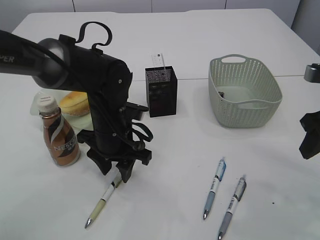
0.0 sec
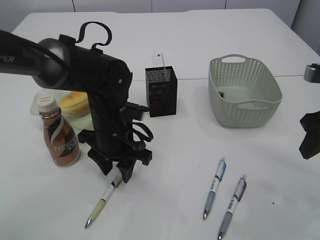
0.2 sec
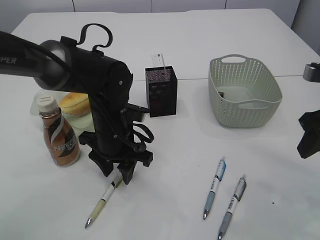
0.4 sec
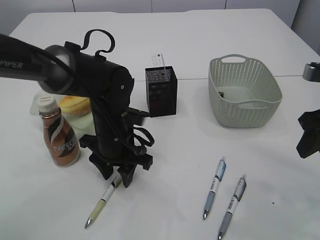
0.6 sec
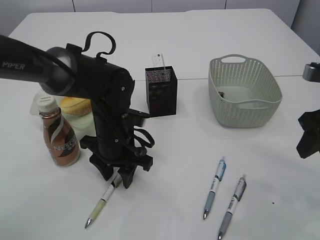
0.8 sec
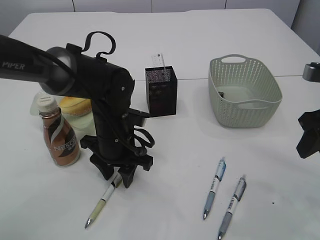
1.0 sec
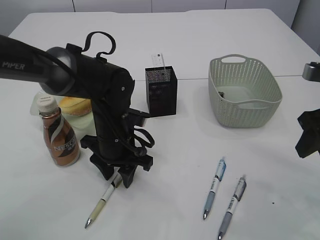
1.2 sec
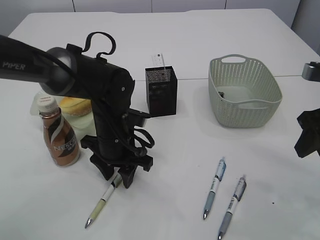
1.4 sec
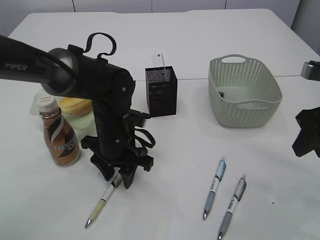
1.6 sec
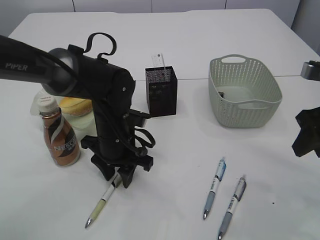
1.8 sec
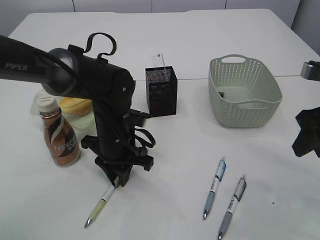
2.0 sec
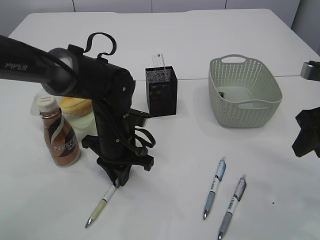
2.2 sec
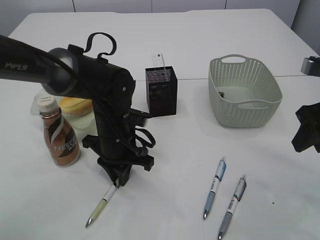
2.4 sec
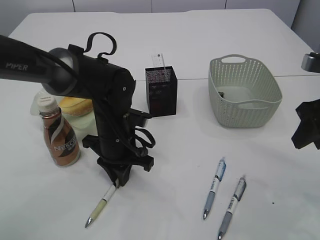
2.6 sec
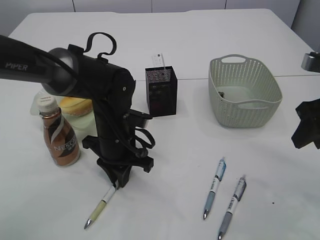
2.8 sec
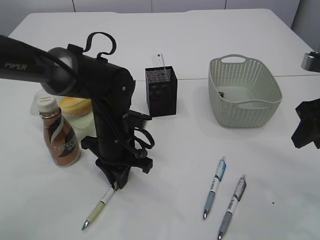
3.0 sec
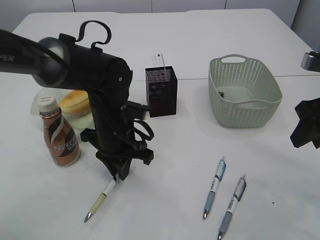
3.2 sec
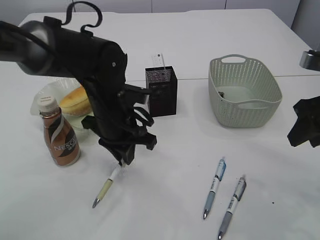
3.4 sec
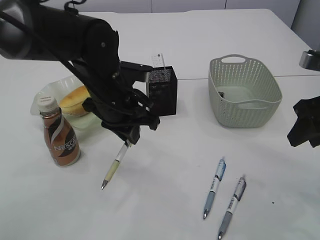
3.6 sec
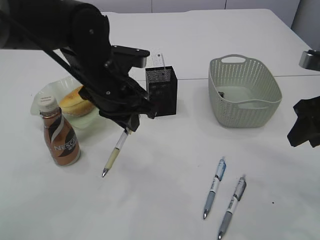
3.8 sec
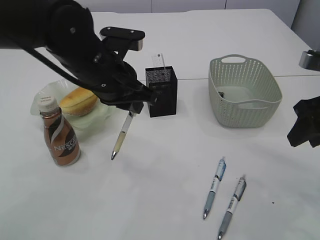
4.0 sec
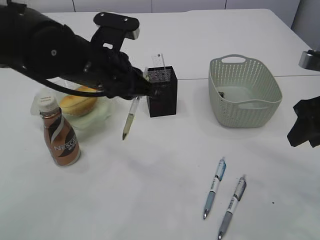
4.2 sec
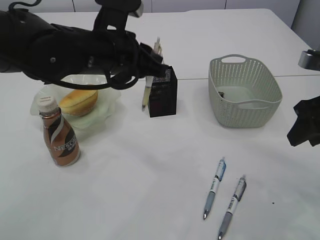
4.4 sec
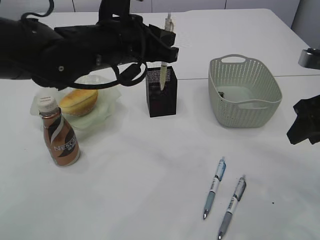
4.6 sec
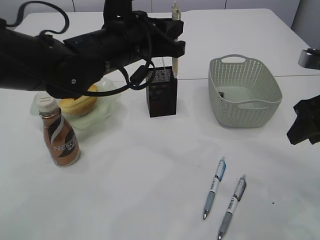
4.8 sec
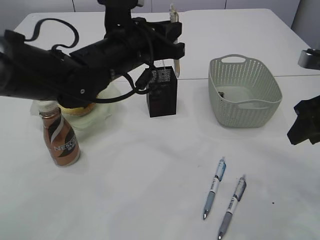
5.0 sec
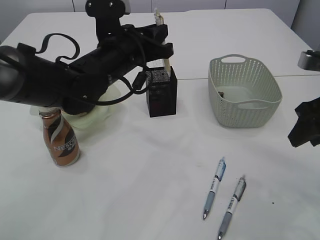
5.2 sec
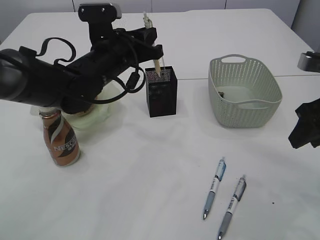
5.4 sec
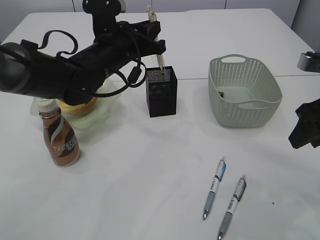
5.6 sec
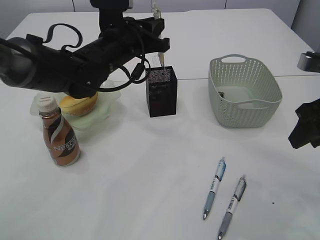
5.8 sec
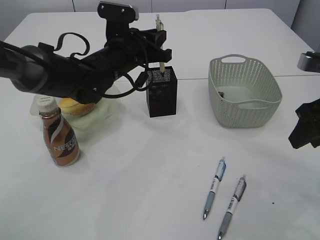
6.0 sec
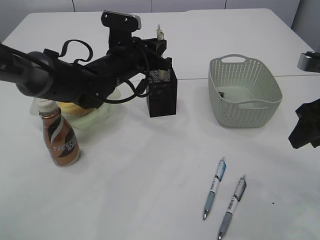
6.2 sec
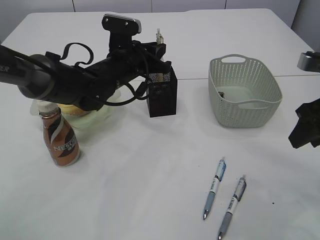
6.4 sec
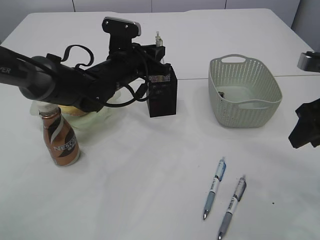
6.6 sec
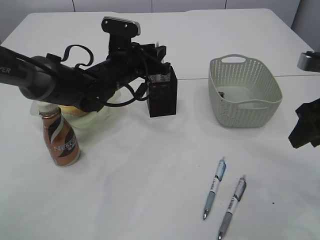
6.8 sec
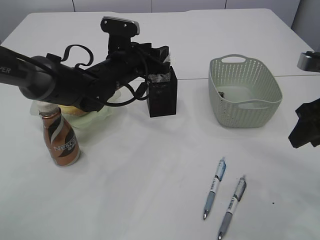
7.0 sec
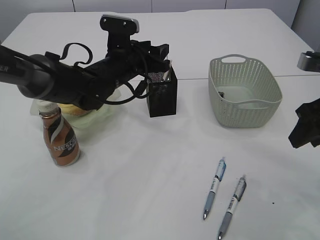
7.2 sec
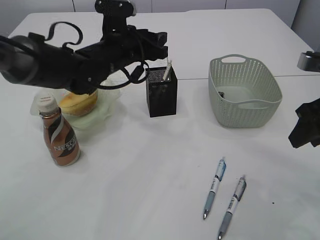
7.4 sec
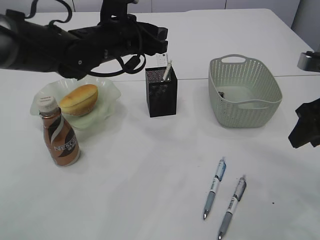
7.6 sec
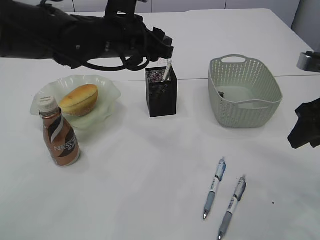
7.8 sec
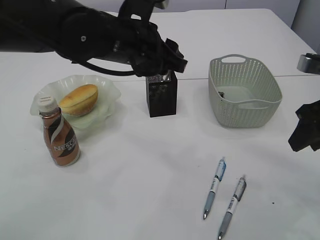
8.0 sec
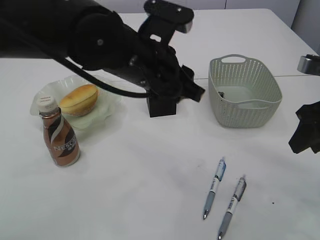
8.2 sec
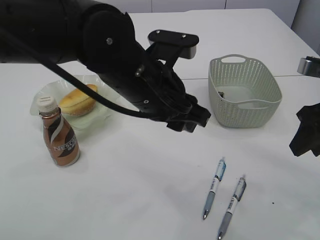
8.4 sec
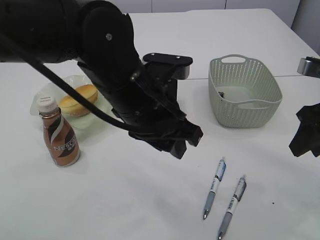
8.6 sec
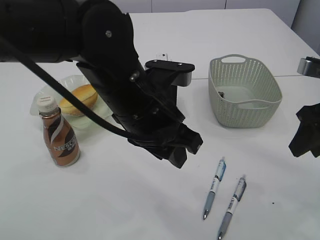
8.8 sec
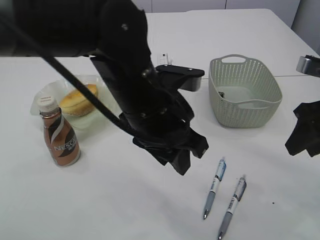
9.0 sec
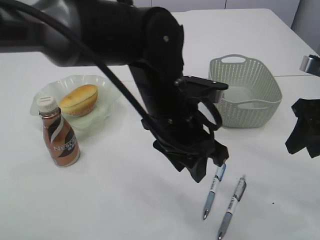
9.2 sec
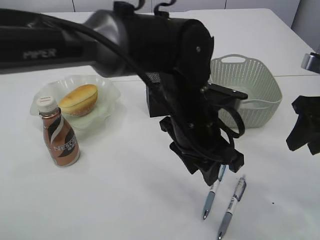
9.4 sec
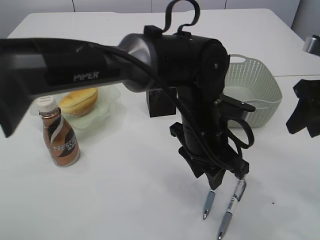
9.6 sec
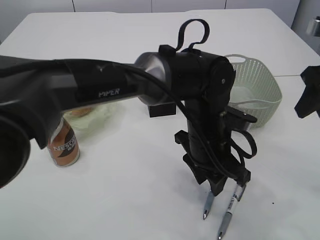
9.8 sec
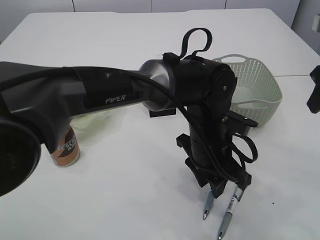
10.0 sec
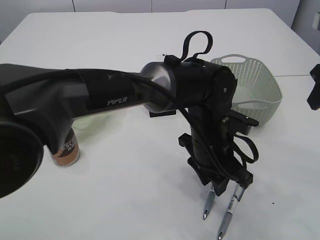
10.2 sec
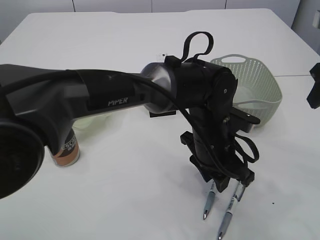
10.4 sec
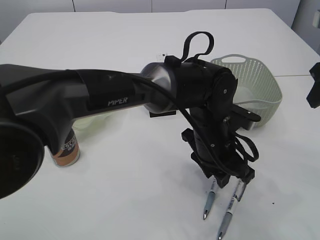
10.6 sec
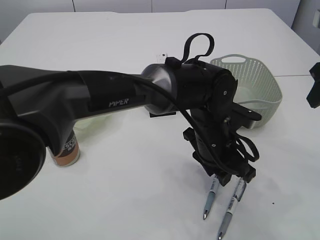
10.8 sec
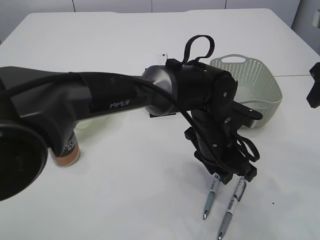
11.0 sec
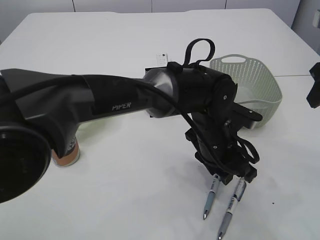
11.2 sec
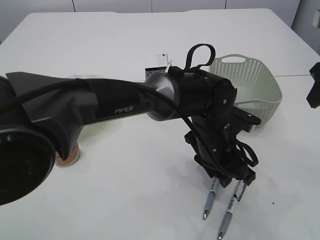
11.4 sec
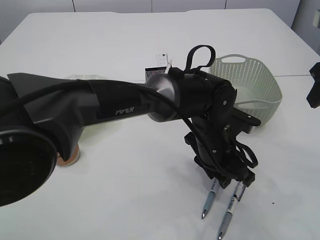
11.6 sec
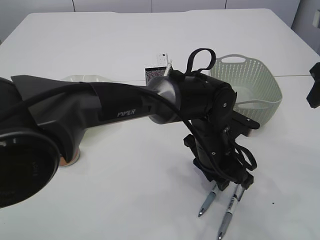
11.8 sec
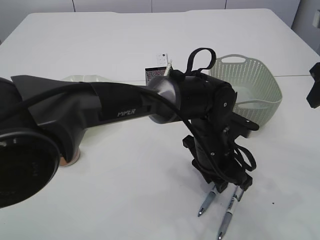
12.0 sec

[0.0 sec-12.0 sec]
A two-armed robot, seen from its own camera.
Step, 0.0 sec to 3.6 sec: Pick up the pen with left arm.
Step, 3.8 sec to 6.8 sec: Place the pen into the pen holder.
0.0 sec to 1.6 sec: There are only small adjustments of the grippers.
1.6 sec to 3.0 sec: The left gripper closes.
3.0 sec to 4.4 sec: The left gripper heads upward, covering about 15 cm.
4.4 sec to 6.0 sec: The left gripper is displaced forward and downward by about 10 cm.
6.0 sec to 7.6 sec: The left gripper opens its fingers.
7.6 sec to 9.0 sec: The left gripper moves backward and to the right, approximately 15 cm.
9.0 sec to 10.4 sec: The right gripper is displaced upward by approximately 5 cm. Meanwhile the left gripper travels downward and to the right by some 15 cm.
10.4 sec to 12.0 sec: The grippers make only small movements.

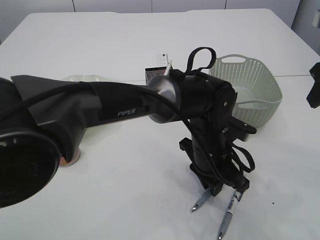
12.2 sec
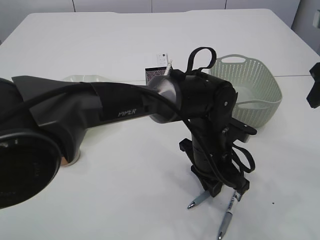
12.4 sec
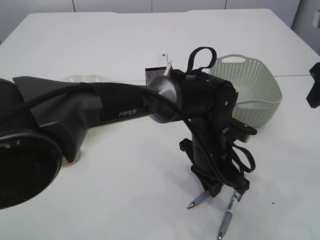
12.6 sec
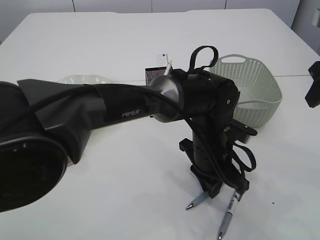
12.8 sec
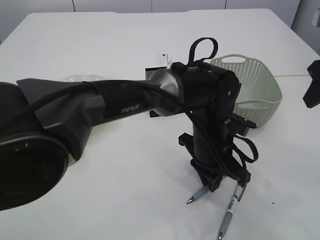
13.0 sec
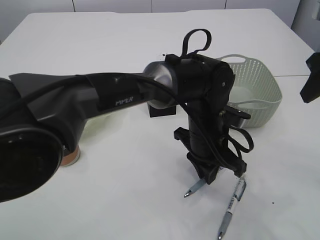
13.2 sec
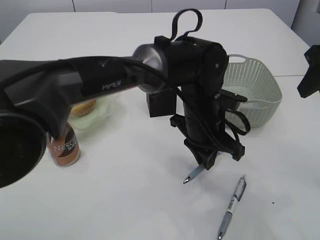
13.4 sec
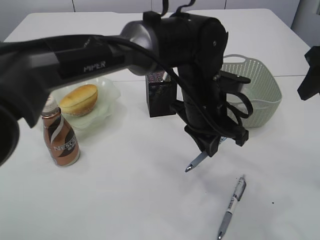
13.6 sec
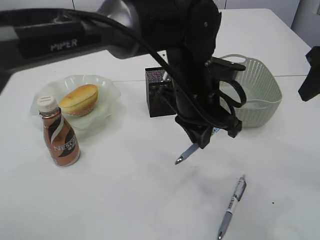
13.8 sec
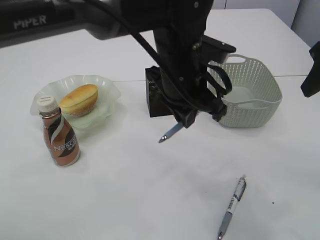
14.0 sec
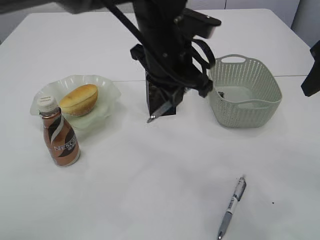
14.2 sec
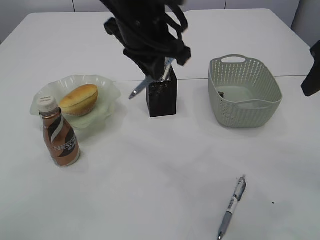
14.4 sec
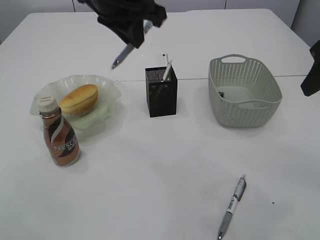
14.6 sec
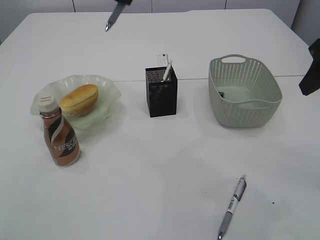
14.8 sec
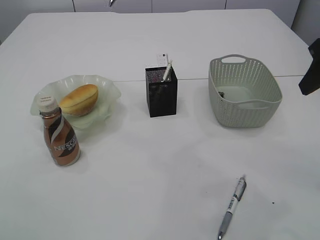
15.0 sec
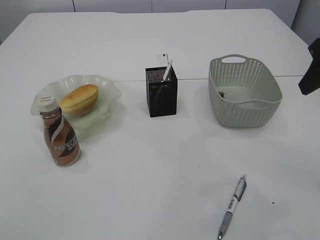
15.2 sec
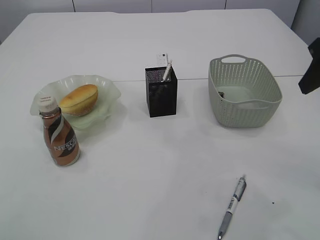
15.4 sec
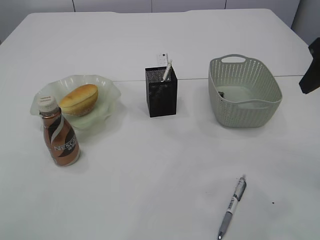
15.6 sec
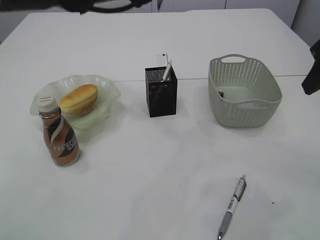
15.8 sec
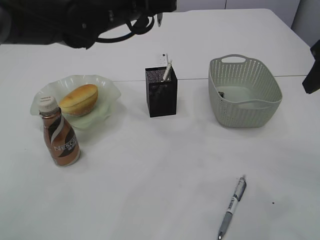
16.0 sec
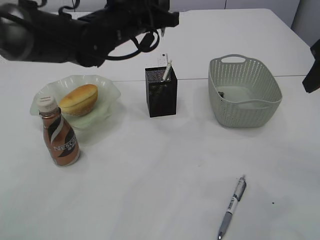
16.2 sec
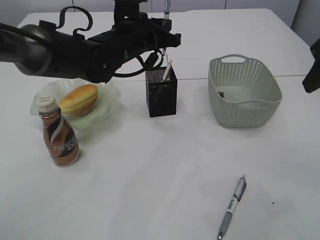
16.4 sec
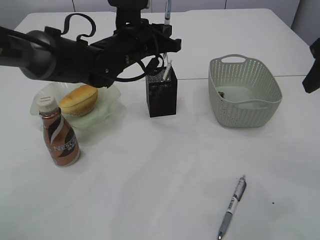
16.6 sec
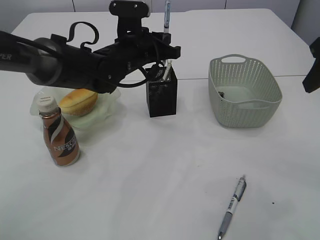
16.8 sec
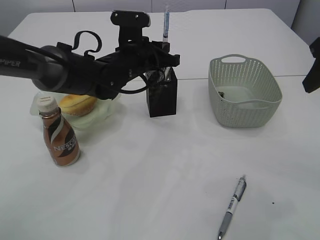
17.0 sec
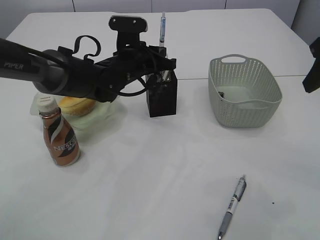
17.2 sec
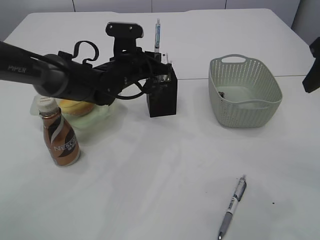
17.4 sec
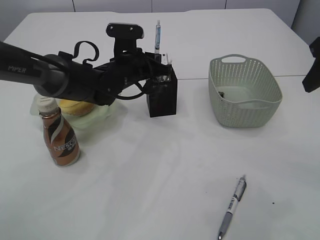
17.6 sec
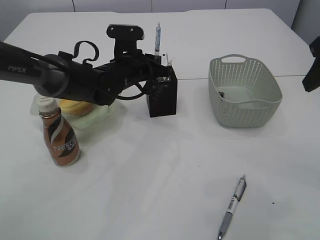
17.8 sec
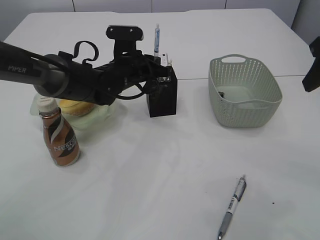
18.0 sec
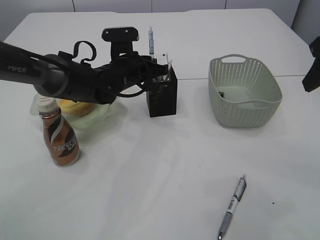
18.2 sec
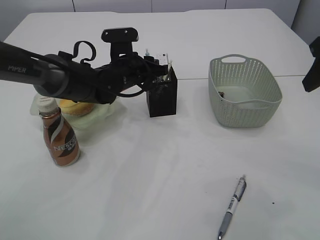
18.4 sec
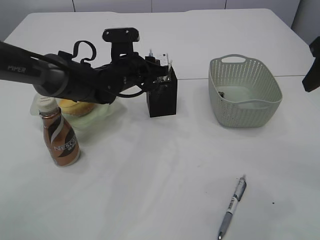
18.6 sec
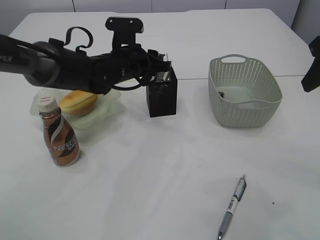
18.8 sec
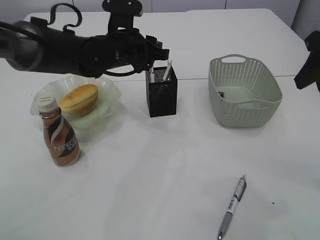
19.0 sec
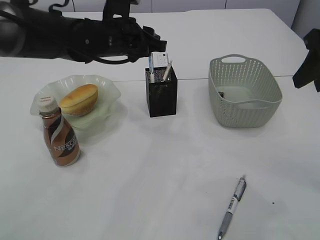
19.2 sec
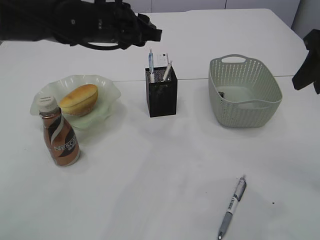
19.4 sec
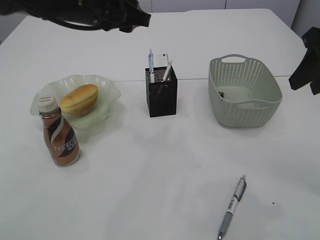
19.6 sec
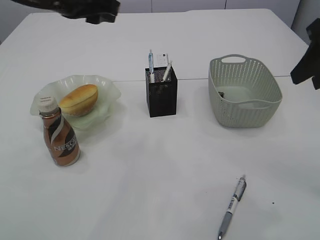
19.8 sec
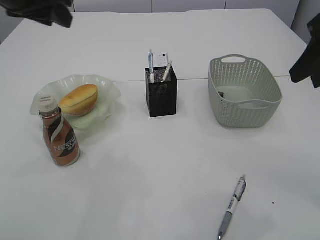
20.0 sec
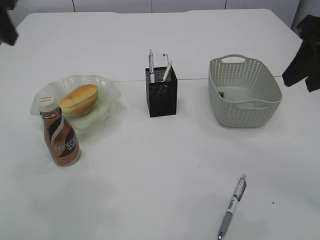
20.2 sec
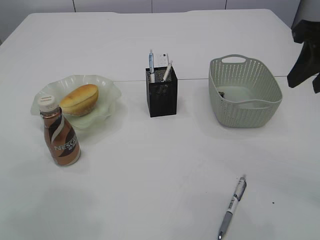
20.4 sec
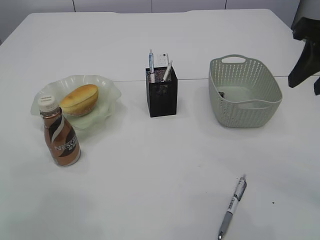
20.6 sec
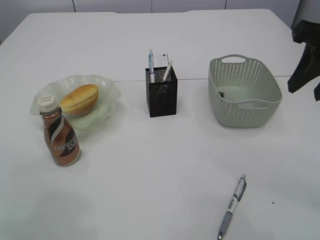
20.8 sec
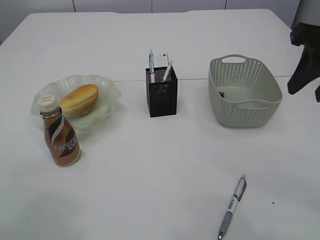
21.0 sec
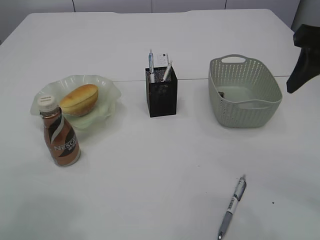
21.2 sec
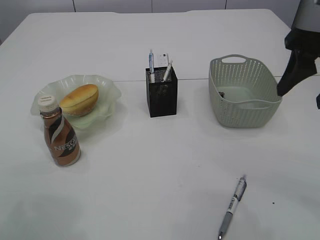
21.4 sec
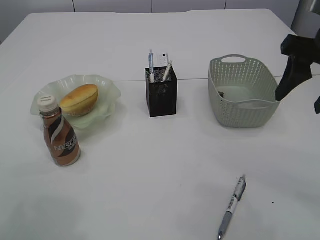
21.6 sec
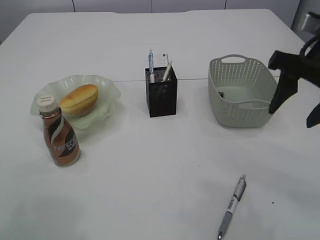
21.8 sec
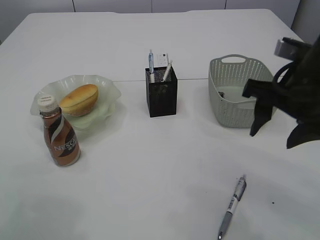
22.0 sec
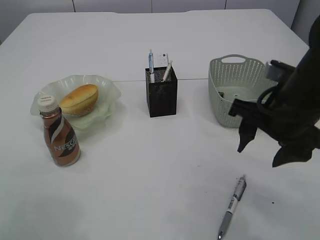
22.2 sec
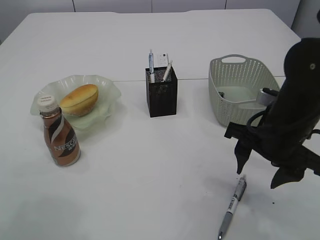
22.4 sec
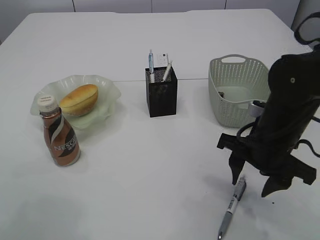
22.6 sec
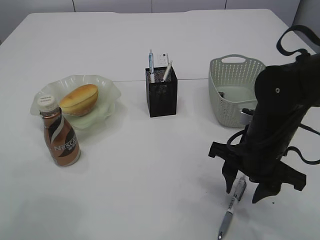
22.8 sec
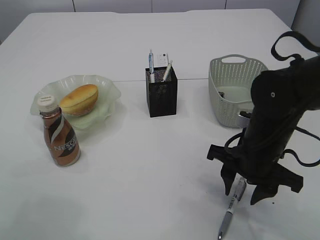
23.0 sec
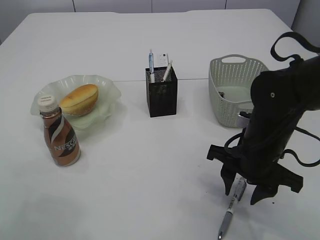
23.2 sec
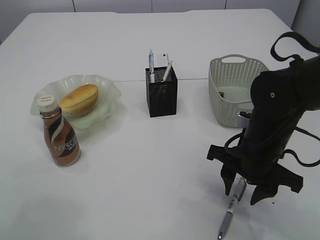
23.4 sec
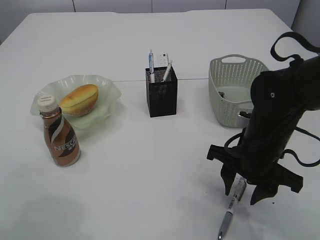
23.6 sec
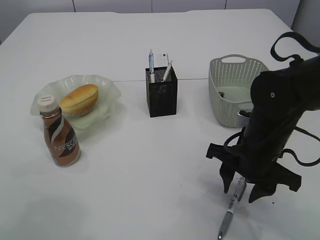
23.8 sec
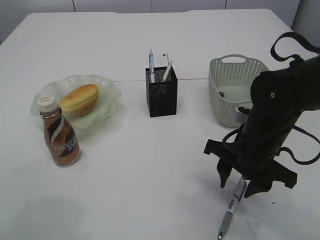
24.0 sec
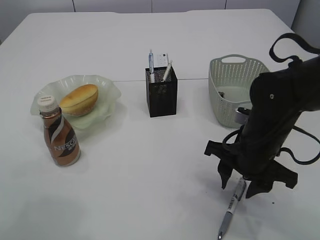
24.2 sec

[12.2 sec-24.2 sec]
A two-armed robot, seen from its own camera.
Step, 13.6 sec to 19.4 sec: Place the pen into the pen holder.
12.2 sec to 13.8 sec: The left gripper travels upward by approximately 10 cm.
13.8 sec to 15.2 sec: The left gripper goes some 25 cm upward and to the left.
15.2 sec to 16.6 sec: The left gripper moves downward, approximately 20 cm.
16.6 sec to 18.2 sec: The left gripper travels downward by some 5 cm.
18.2 sec to 19.8 sec: The left gripper moves upward, some 20 cm.
19.8 sec to 21.2 sec: The left gripper travels to the left and backward by about 20 cm.
21.2 sec to 22.6 sec: The right gripper moves downward and to the left, roughly 20 cm.
22.6 sec to 24.2 sec: There are only small adjustments of the grippers.
